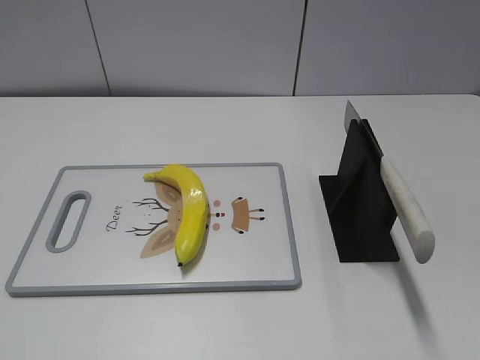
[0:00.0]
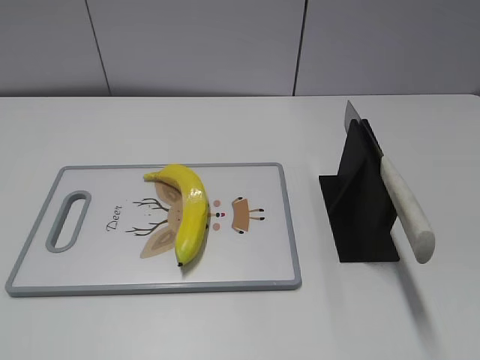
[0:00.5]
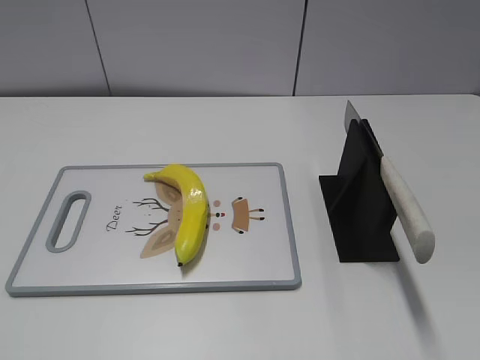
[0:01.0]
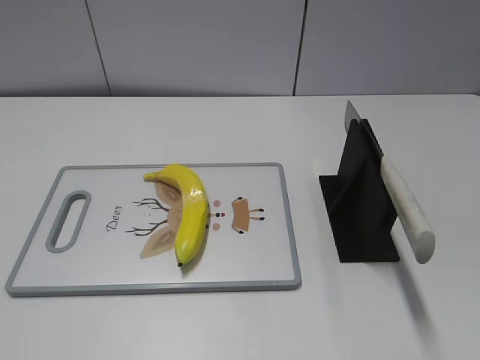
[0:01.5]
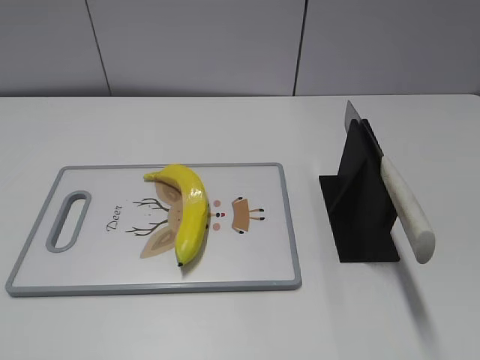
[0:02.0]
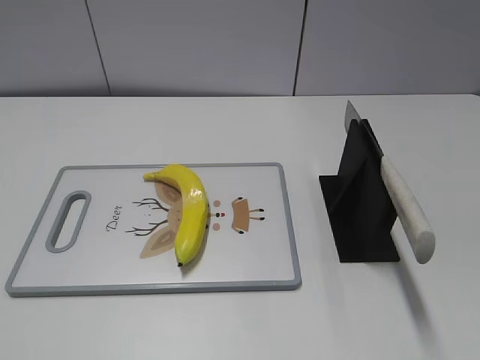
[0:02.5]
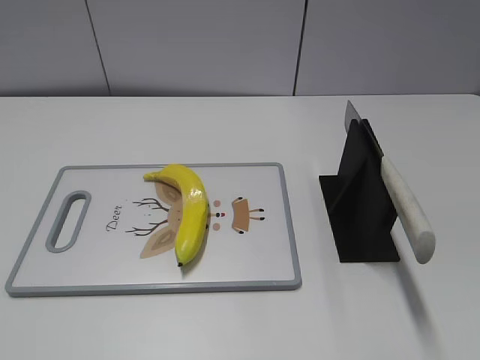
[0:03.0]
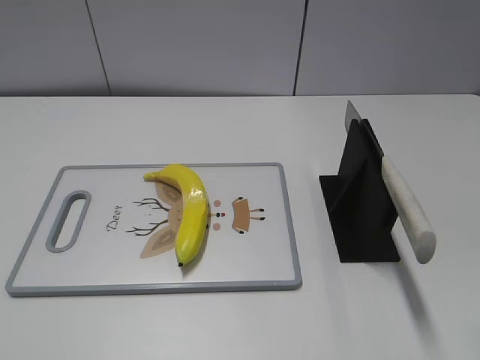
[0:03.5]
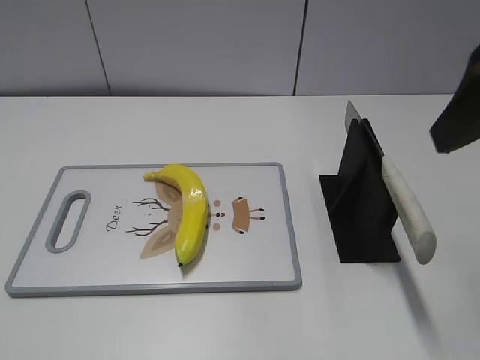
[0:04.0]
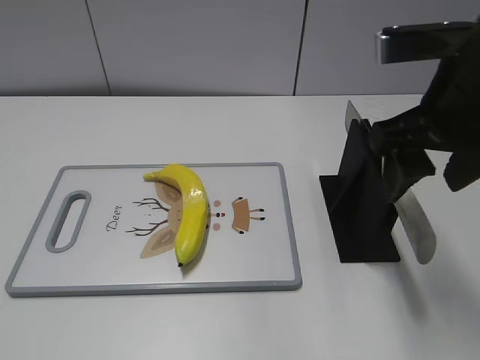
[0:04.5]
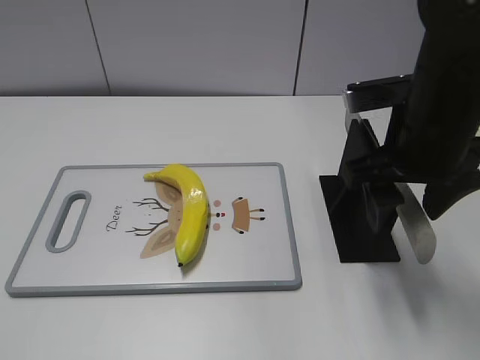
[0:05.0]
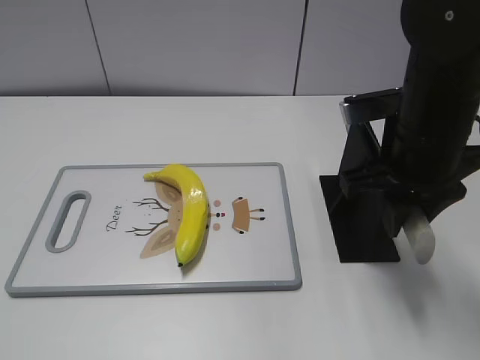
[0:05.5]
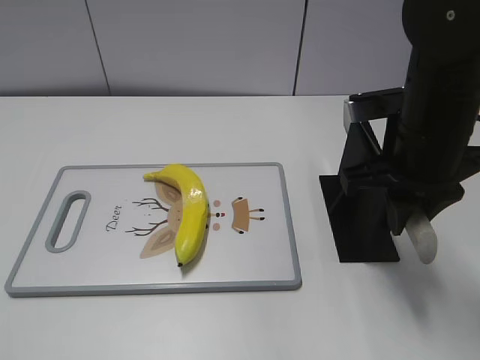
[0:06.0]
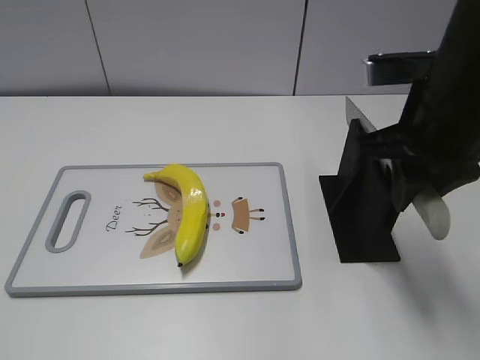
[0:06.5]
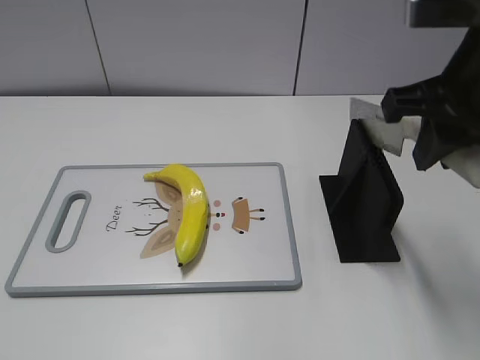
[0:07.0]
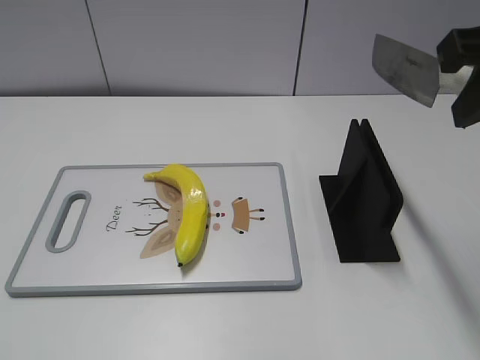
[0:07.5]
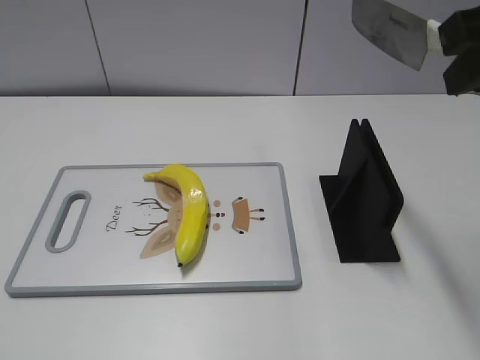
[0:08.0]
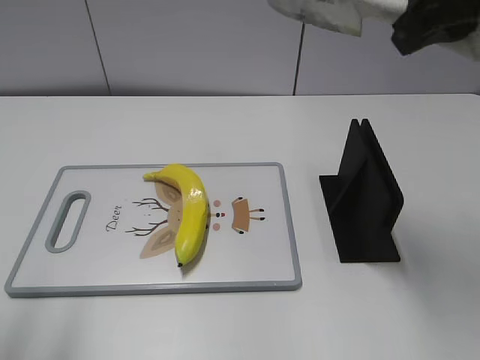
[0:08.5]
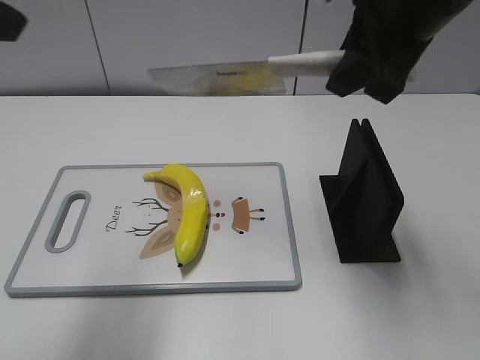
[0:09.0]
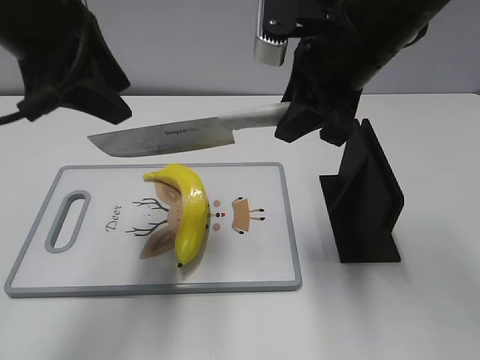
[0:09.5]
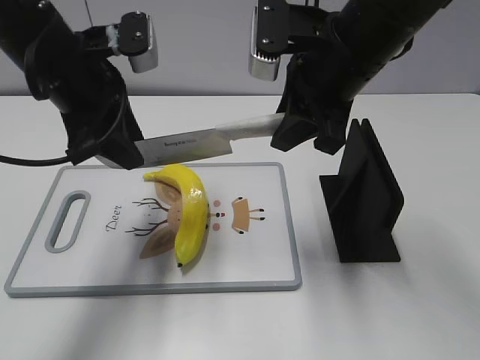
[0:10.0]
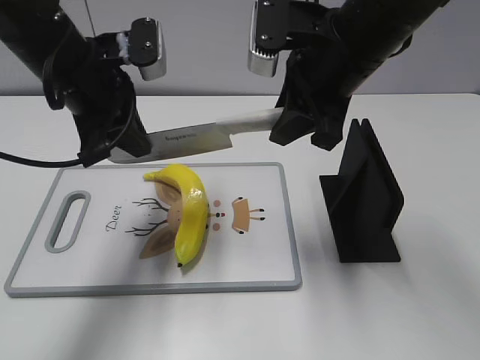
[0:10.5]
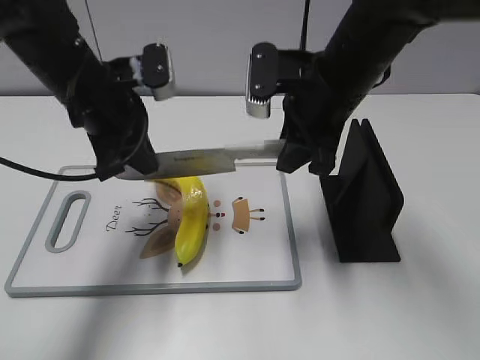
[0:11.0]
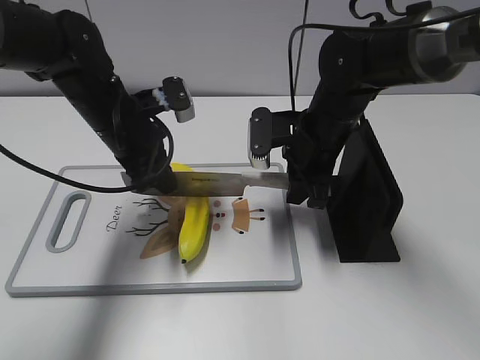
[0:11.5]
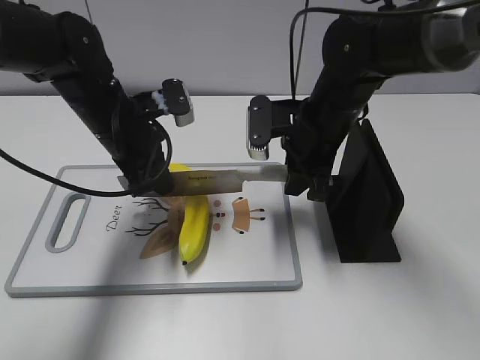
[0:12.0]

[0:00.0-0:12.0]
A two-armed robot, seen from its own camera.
Task of the whole recording: cut plastic banana.
Step, 0:00.0 to 0:07.5: Grab the knife handle with your right hand.
0:02.0 to 0:04.0: The right gripper shifts some 20 cm forward and upward.
0:04.0 to 0:06.0: The right gripper travels downward and forward by approximately 15 cm, and closes up.
0:06.0 to 0:08.0: The right gripper heads upward, covering roughly 15 cm.
0:08.0 to 0:10.0: The left gripper moves forward and to the right, approximately 35 cm. Meanwhile the right gripper moves forward, to the left and downward, some 15 cm.
0:10.0 to 0:12.0: The grippers both shift downward by roughly 10 cm. The left gripper closes up.

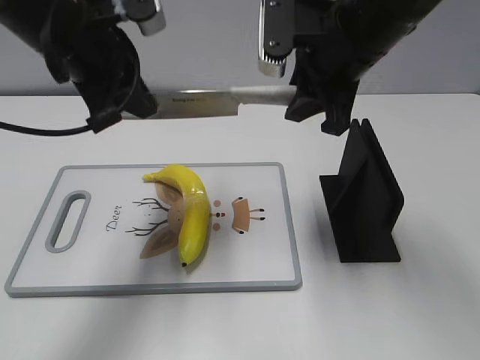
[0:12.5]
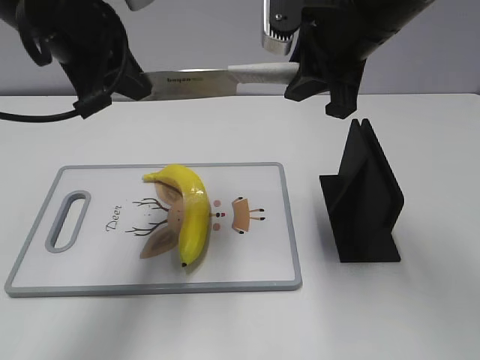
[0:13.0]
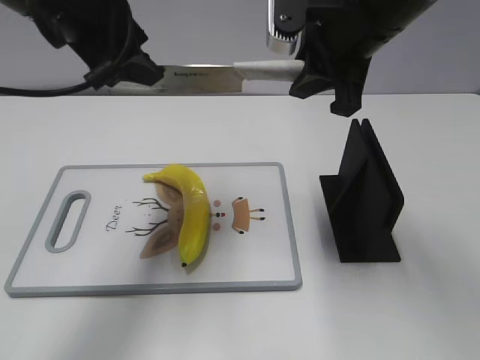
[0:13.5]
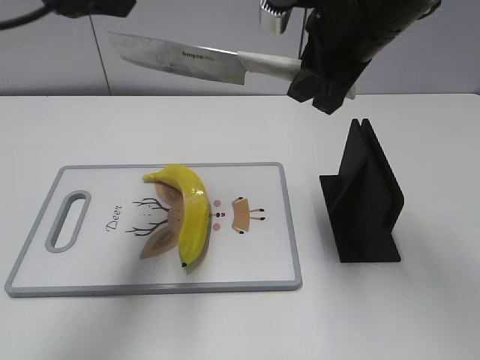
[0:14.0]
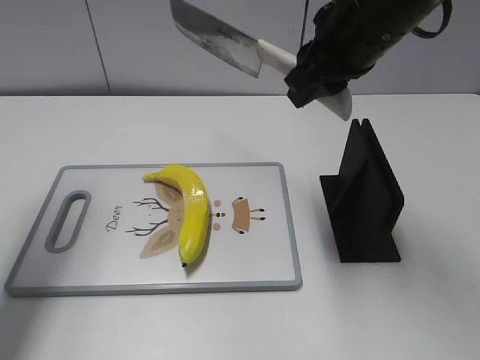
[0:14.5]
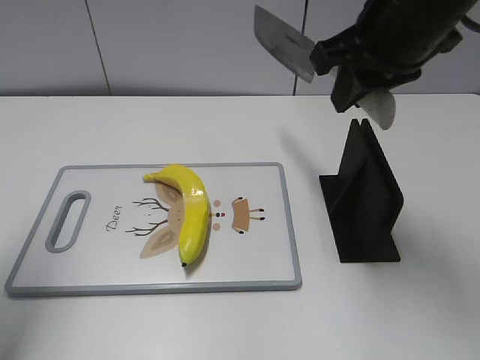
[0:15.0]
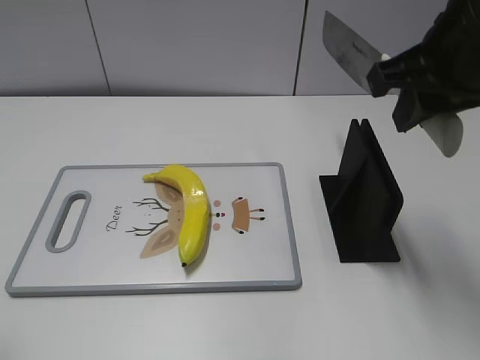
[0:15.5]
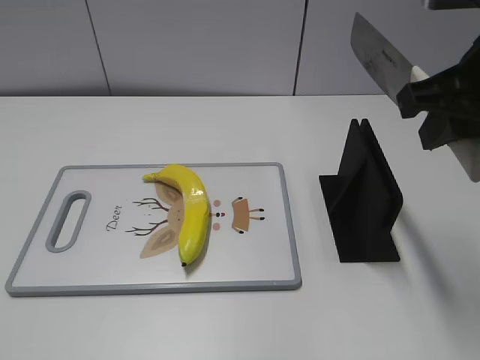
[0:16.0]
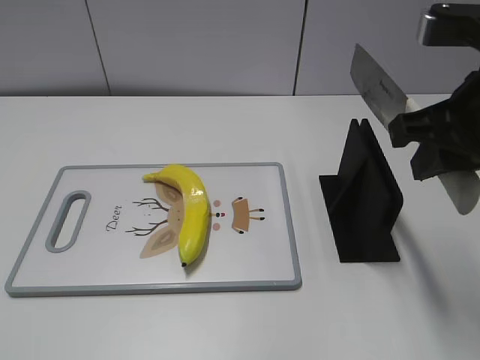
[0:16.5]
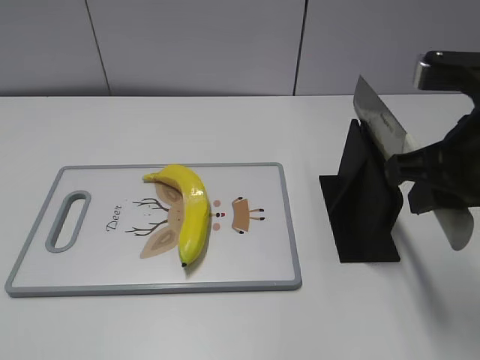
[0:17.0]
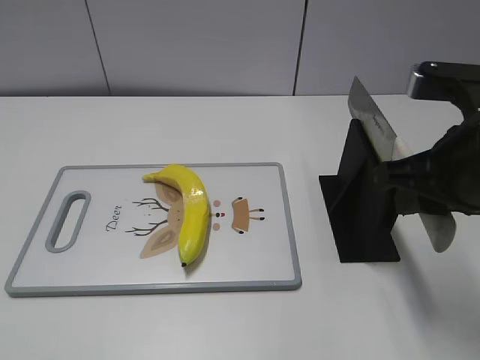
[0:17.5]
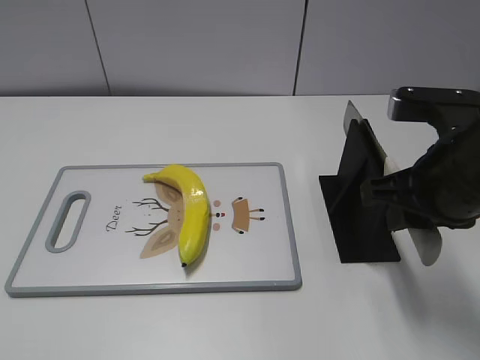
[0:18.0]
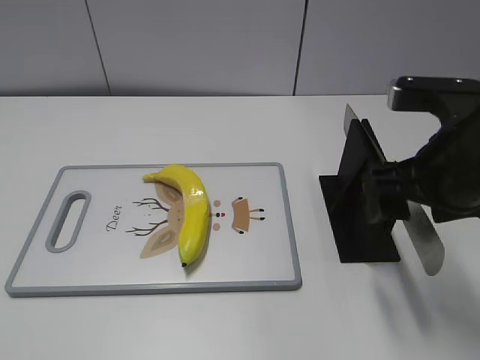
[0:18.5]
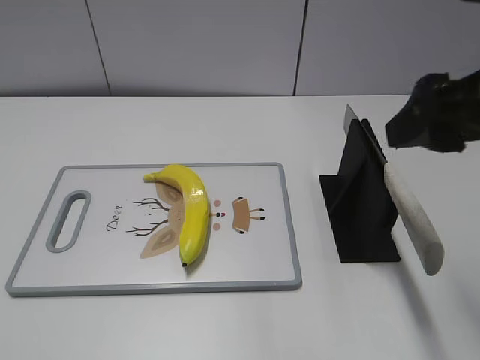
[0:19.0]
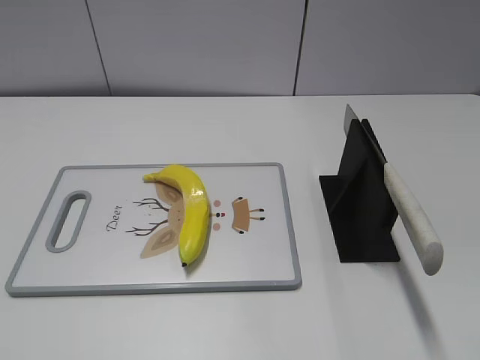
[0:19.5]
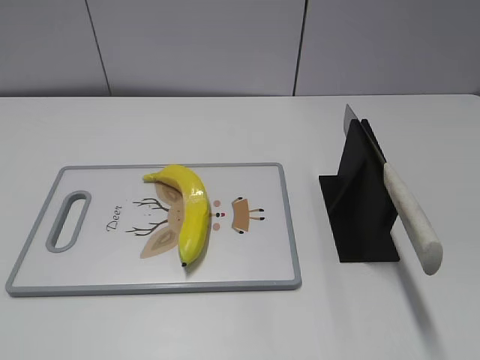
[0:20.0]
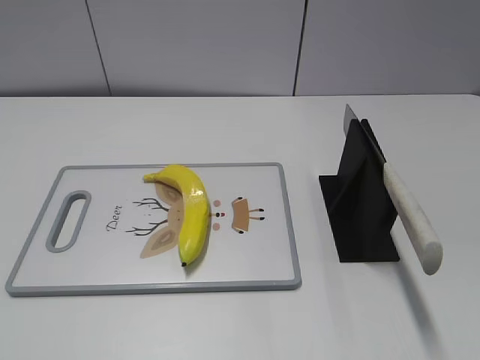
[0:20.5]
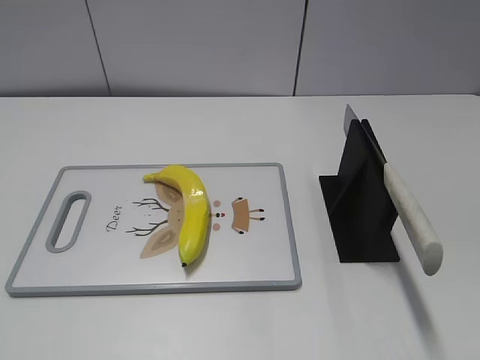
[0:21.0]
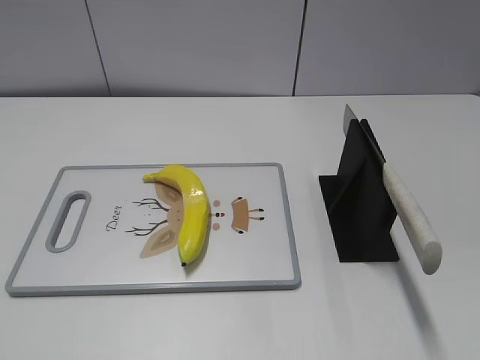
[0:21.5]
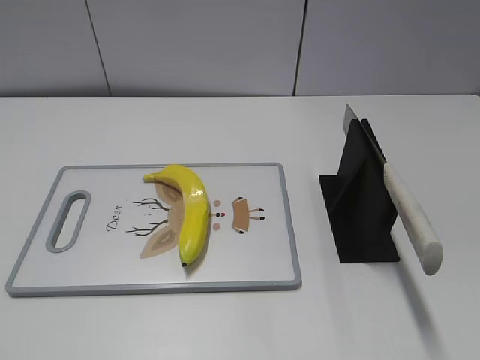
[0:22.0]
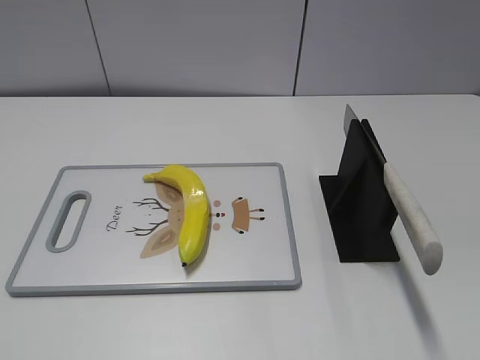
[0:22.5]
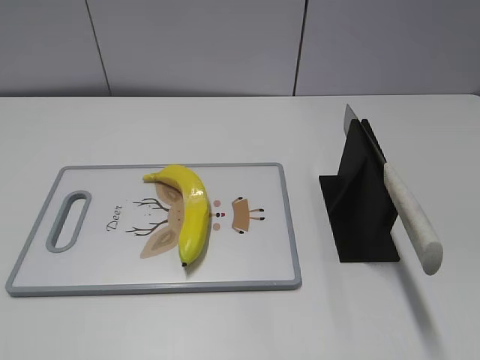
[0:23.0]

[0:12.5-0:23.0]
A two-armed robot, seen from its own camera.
Task of the whole recording: cut plastic banana.
Step, 0:14.5 to 0:16.5: Lift the knife with your right hand.
0:12.5 to 0:14.5: The left gripper shifts approximately 15 cm to the left and upward, and opens.
0:14.5 to 0:16.5: The left gripper goes about 30 cm backward, while the right gripper goes roughly 15 cm backward and to the right.
0:16.5 to 0:19.0: The right gripper reaches some 5 cm downward, then returns, and opens up.
0:19.0 to 0:21.0: The right gripper travels backward and to the right by about 20 cm.
